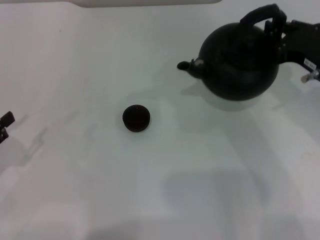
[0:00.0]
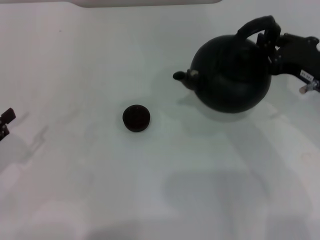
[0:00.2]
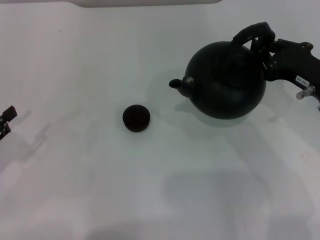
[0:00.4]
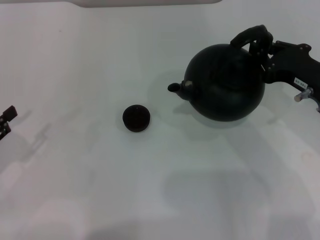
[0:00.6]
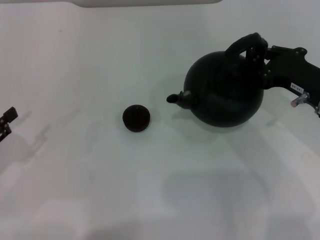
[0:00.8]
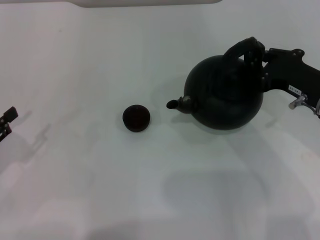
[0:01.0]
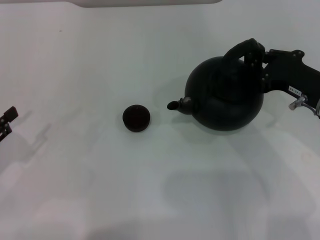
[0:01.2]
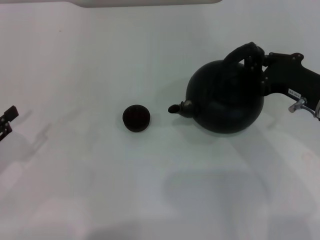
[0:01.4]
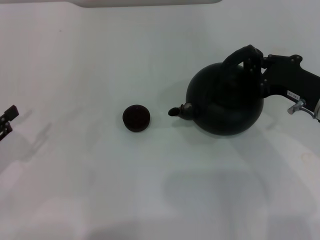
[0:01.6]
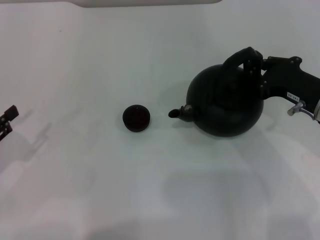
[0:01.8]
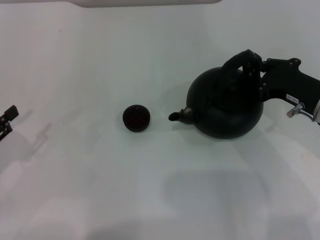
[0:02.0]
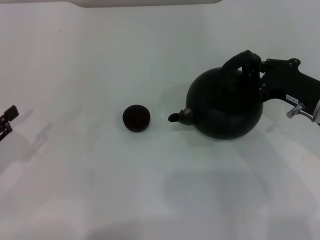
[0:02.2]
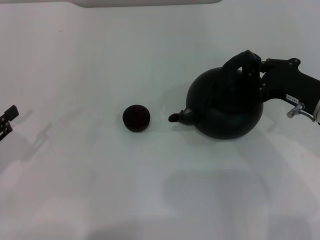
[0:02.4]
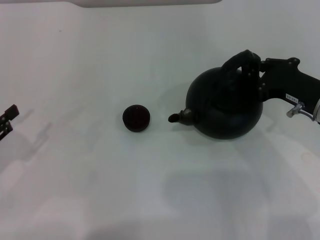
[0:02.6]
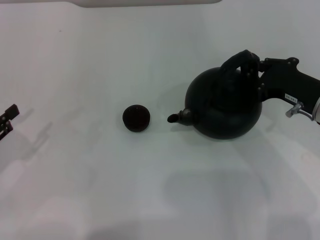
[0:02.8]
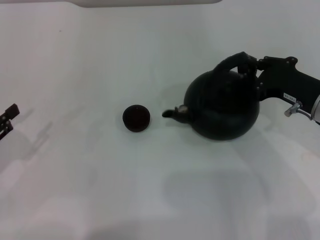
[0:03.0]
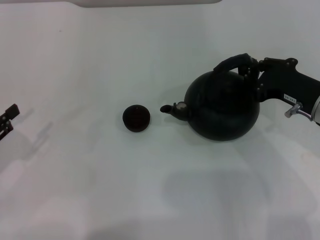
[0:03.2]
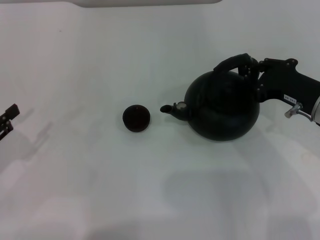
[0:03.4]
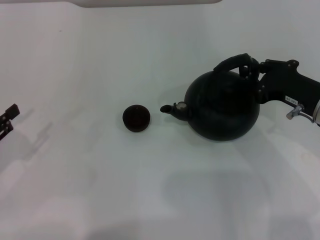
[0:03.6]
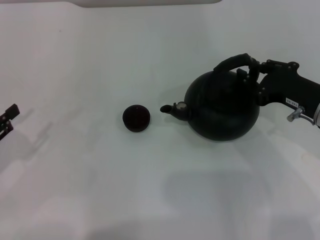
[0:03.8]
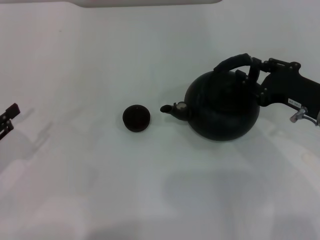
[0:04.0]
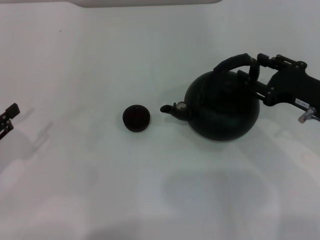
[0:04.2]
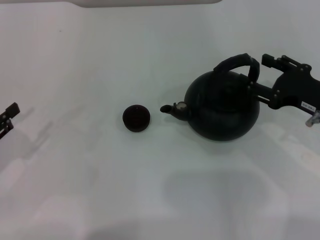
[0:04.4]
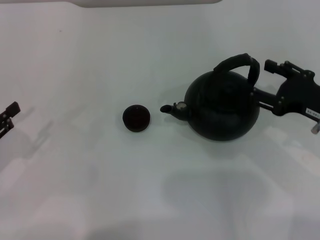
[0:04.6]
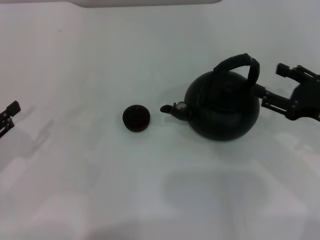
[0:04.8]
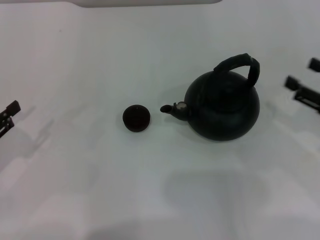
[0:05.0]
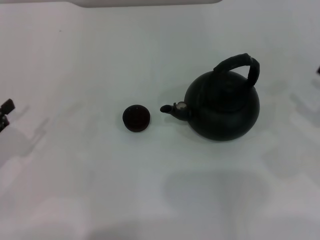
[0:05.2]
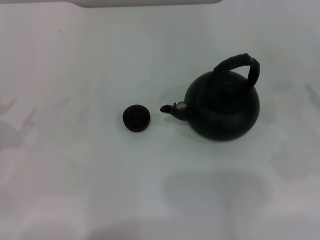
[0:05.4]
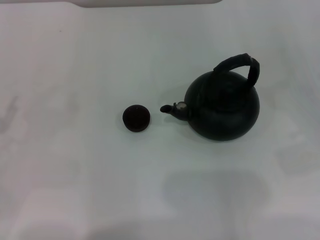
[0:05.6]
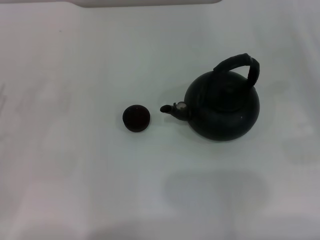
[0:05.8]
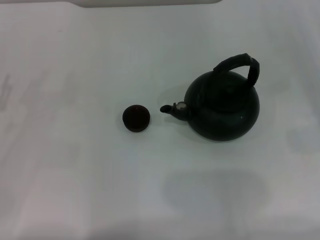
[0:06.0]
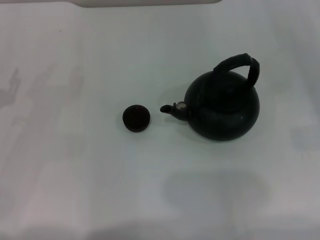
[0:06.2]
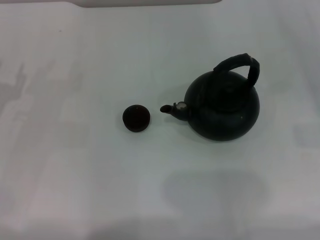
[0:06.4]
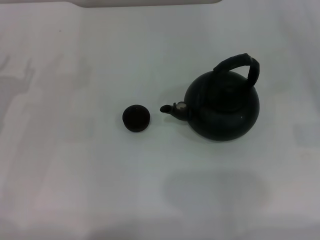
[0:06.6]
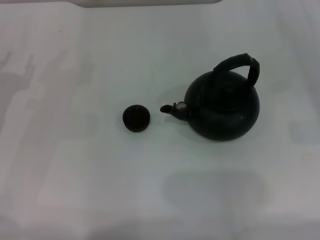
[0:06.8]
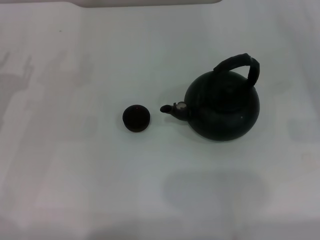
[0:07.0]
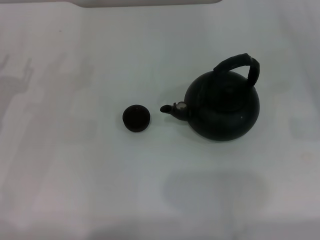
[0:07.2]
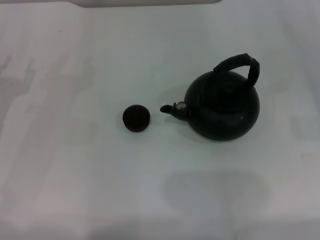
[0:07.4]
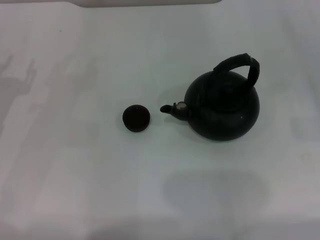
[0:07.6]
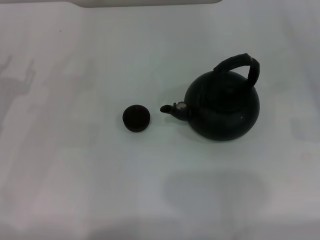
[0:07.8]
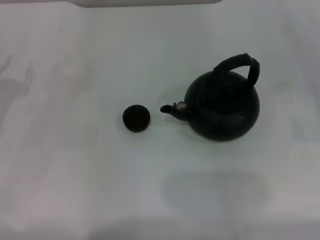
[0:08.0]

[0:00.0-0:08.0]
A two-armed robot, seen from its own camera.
Task of the whole recording: Grasp the handle of the teapot with one hand and pour tea into the teacup.
Step, 0:00.0 to 0:04.4: Put down the teapot with the right gripper.
0:00.0 to 0:01.6: The grippers make only small movements.
0:01.6 to 0:03.2: Neither gripper changes place.
0:03.2 to 0:04.8: The right gripper shifts by about 5 cm, and opens up.
0:04.8 to 0:06.4: The left gripper heads forward, covering about 5 cm. The right gripper shifts about 15 cm to the right.

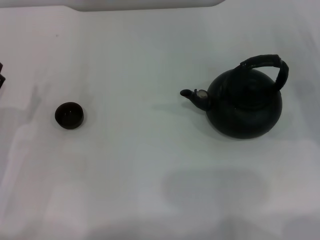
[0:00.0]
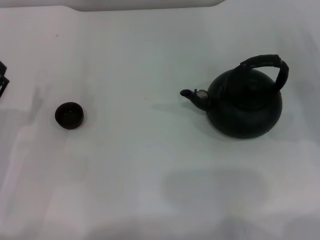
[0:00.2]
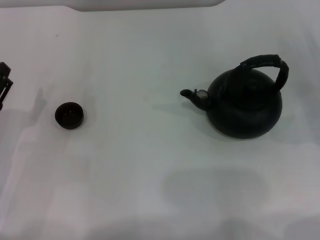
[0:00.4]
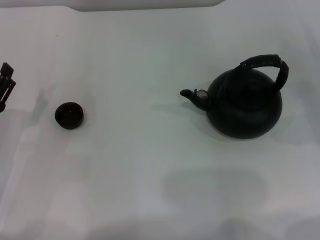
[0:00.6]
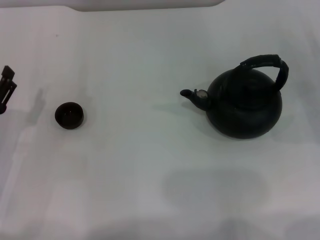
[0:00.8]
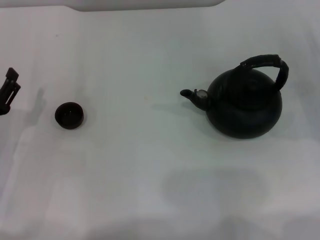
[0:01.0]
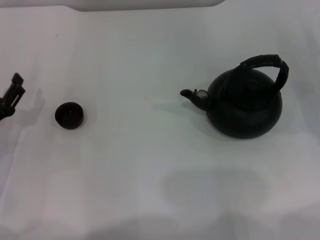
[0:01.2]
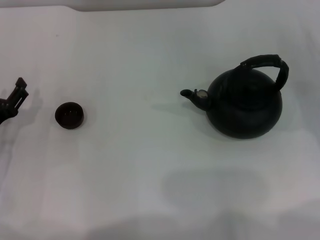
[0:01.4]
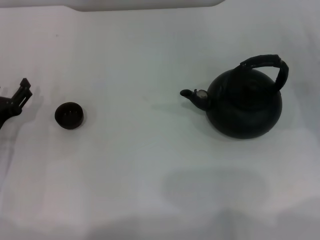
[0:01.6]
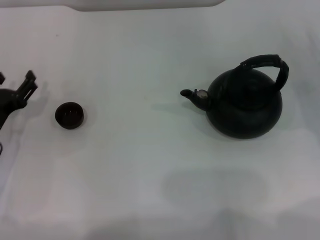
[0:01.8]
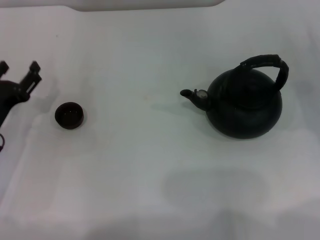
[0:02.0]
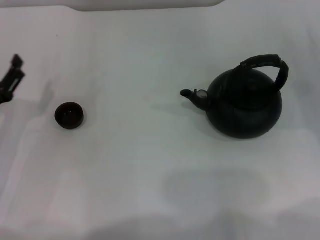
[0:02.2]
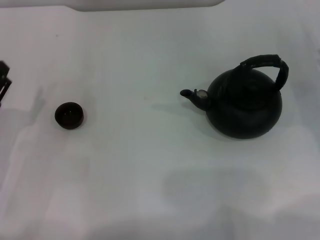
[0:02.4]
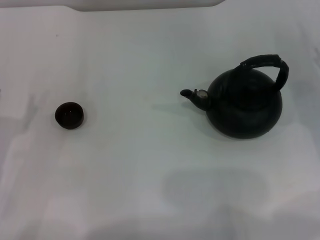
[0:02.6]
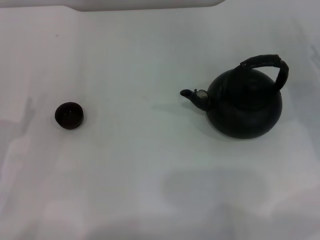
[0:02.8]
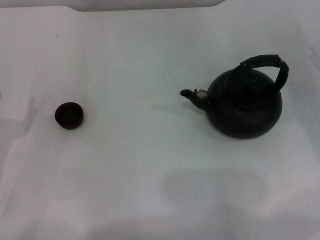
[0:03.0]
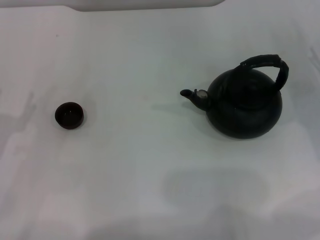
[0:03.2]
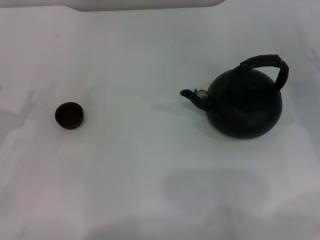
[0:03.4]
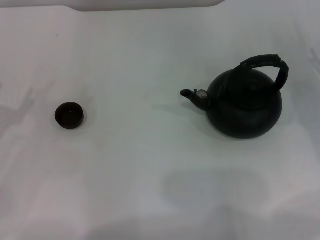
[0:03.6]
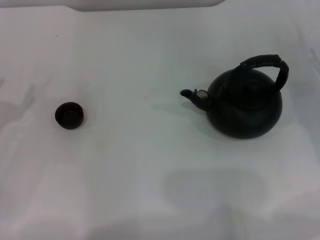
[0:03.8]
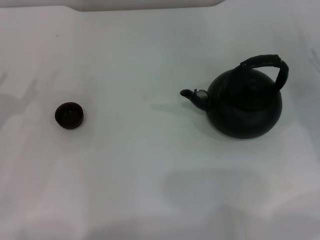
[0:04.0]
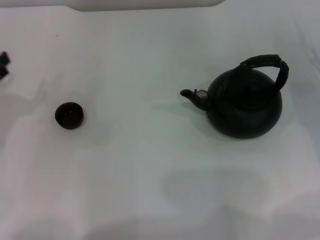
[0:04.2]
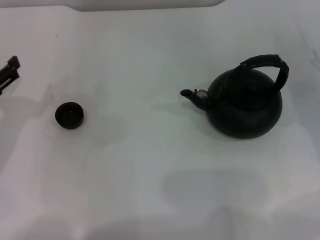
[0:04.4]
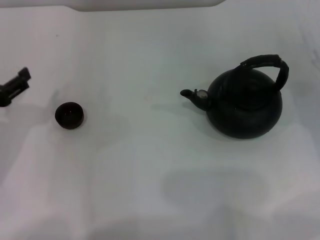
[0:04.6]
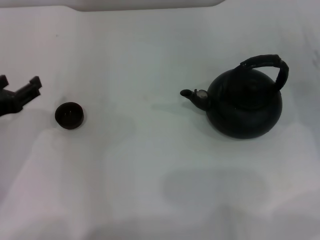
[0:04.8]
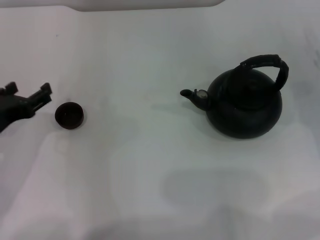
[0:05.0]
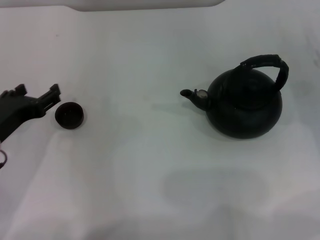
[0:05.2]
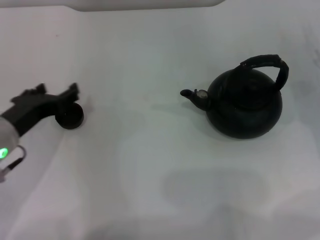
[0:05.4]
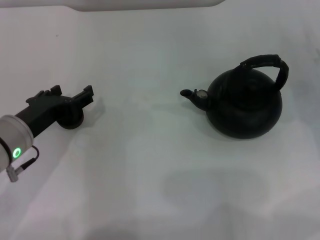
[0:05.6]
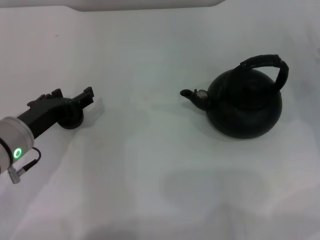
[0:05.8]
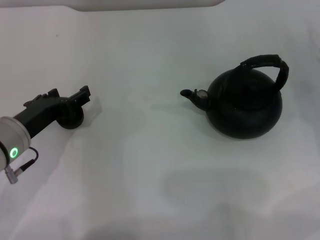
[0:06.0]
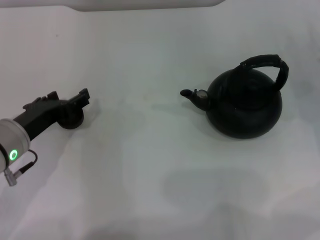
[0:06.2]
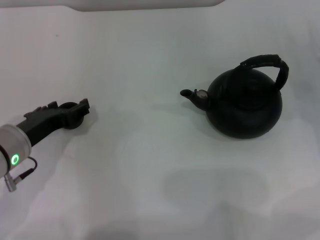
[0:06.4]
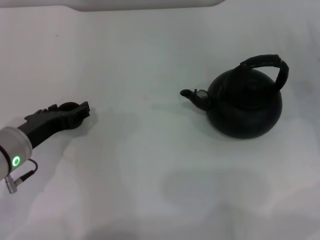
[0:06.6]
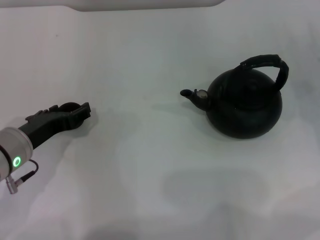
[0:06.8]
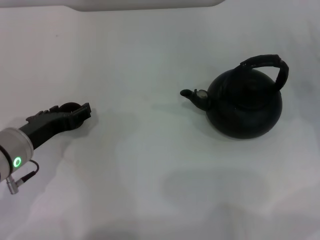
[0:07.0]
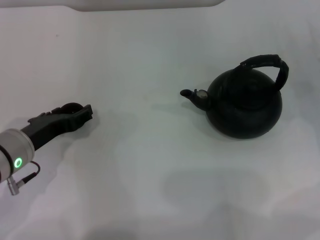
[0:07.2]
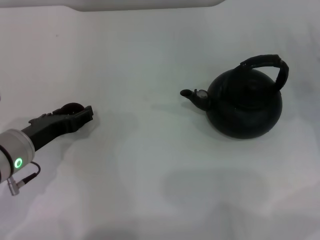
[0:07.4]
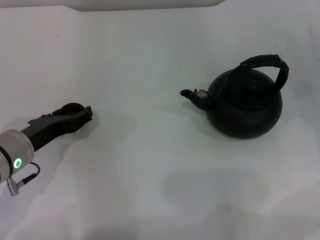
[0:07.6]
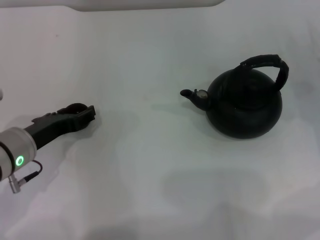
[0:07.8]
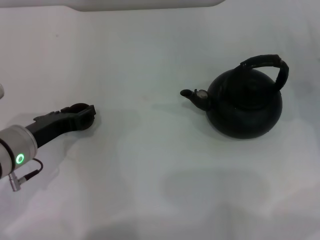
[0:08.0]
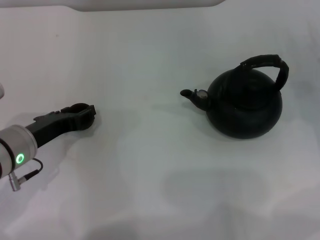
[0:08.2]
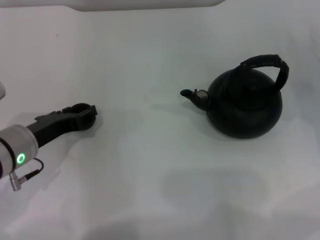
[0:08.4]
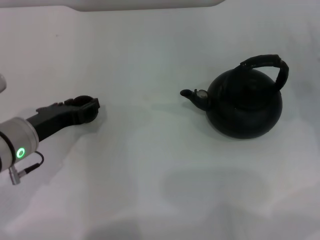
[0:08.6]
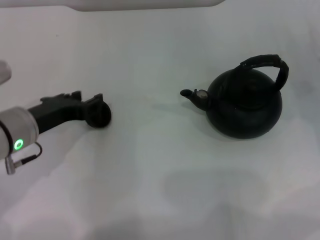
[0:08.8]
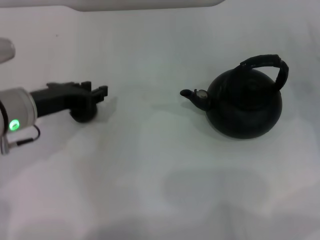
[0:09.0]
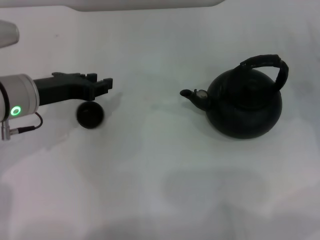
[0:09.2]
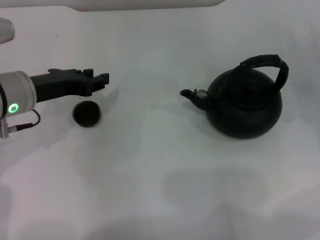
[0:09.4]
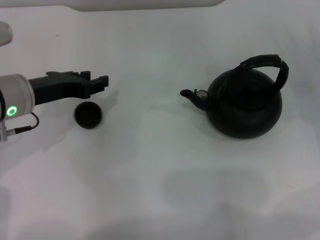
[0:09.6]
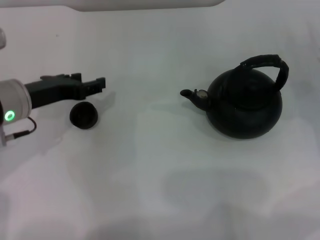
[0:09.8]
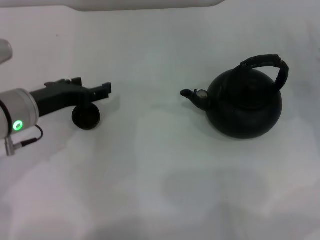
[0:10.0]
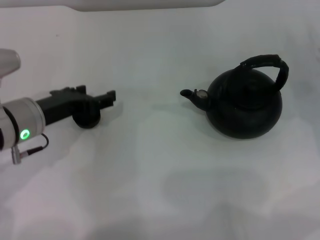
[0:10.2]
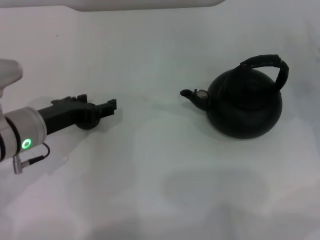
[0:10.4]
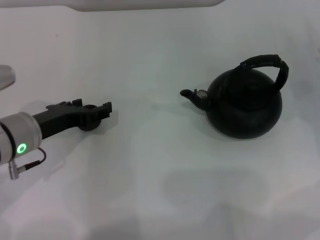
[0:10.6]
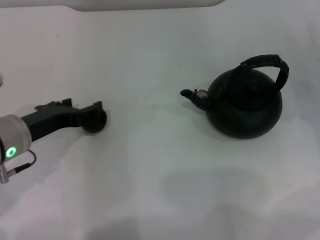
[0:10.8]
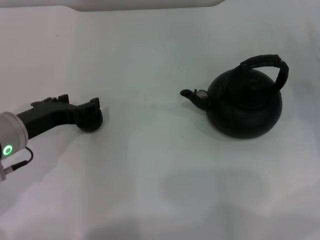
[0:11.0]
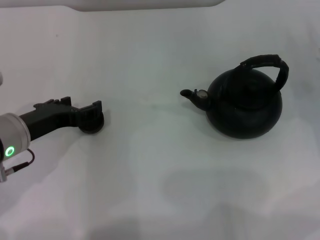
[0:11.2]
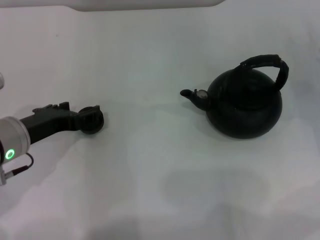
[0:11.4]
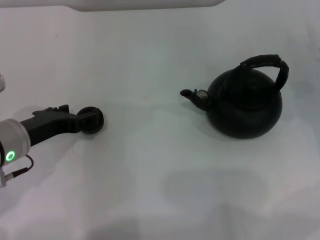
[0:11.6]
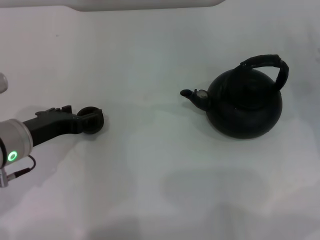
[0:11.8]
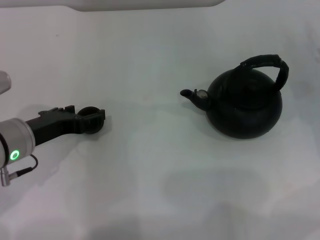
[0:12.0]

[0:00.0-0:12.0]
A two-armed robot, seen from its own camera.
Task of the whole recording: Grasp the handle of the teapot with one hand and pour tea into the teacup.
0:00.0 to 0:01.6: There are only small adjustments of the grippers.
0:01.6 to 0:03.0: The left gripper travels backward by about 5 cm.
0:03.0 to 0:04.4: The left gripper is displaced upward by about 10 cm.
0:04.4 to 0:06.0: The left gripper moves to the right, approximately 10 cm.
0:06.0 to 0:07.6: The grippers stay close to where they were, moving slightly.
0:07.6 to 0:09.0: The left gripper shifts by approximately 5 cm, and closes up.
0:09.0 to 0:10.4: The left gripper opens up.
0:10.4 to 0:12.0: The grippers stay close to where they were, moving slightly.

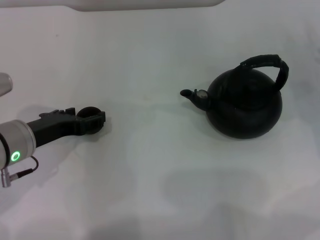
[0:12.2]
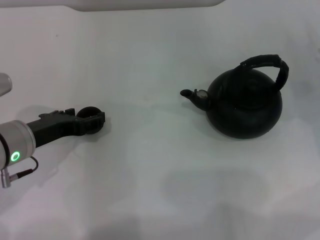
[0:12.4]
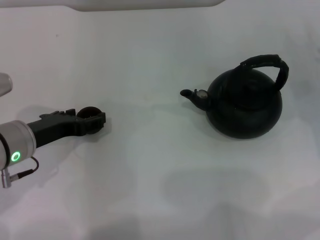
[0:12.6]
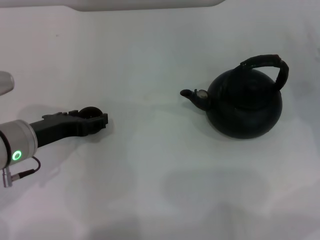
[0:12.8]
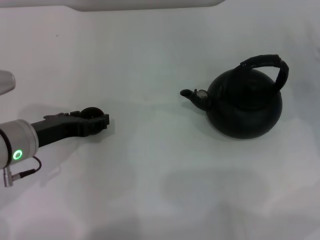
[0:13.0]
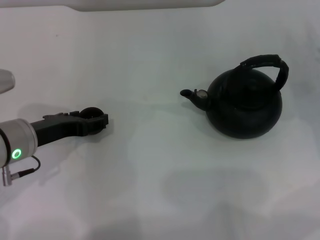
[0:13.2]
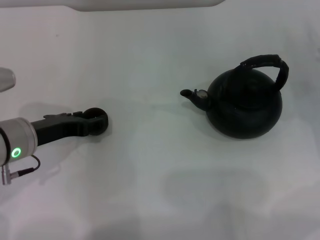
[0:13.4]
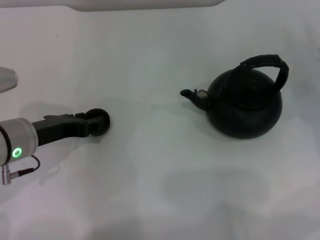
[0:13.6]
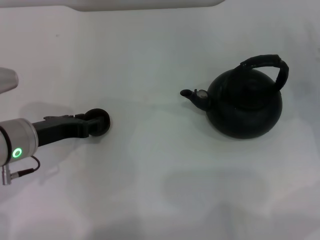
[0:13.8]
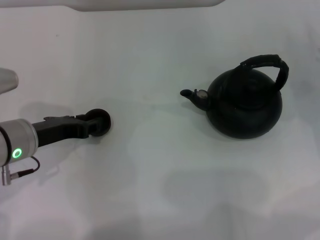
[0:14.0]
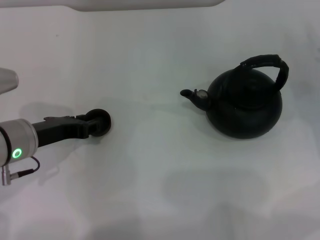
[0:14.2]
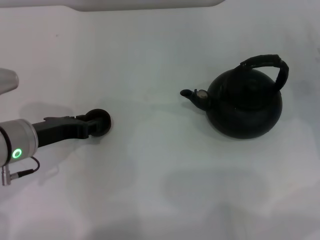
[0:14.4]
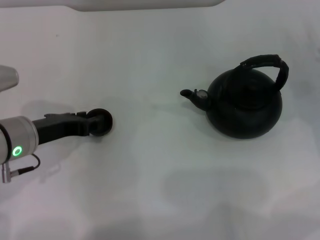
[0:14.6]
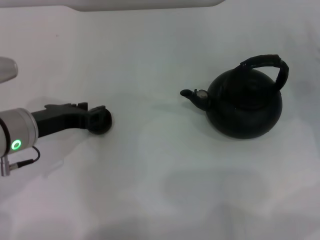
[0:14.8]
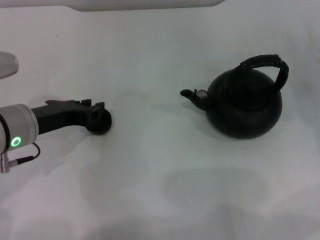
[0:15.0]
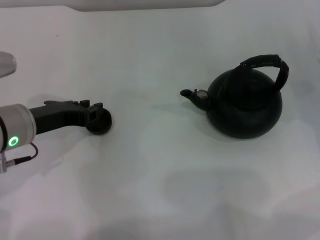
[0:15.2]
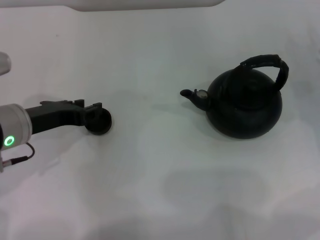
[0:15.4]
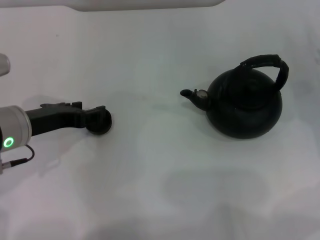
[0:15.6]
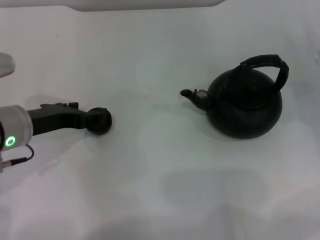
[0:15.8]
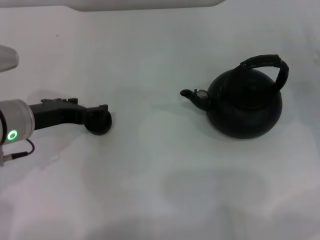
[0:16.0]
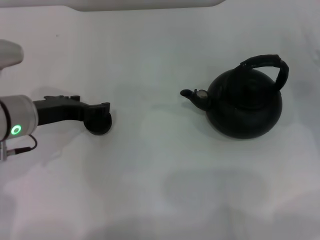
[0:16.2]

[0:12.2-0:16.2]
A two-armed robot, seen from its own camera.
Task of the whole recording: Grasp the handle of the teapot with one hand and pour tea into the teacup.
0:12.2 to 0:13.6: The left gripper closes its fingers.
0:13.6 to 0:14.8: The left gripper closes.
0:14.8 to 0:16.2: The left gripper opens its fingers.
